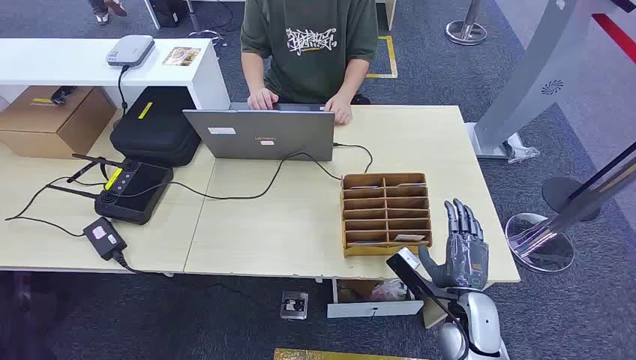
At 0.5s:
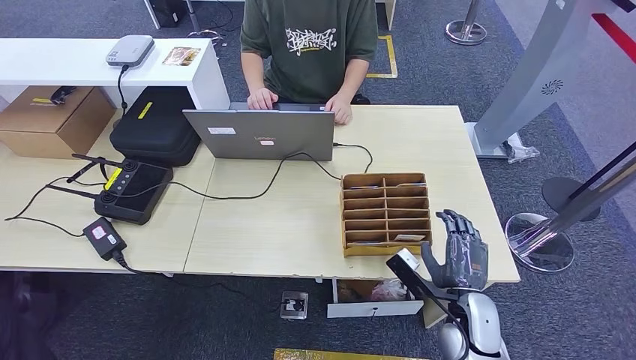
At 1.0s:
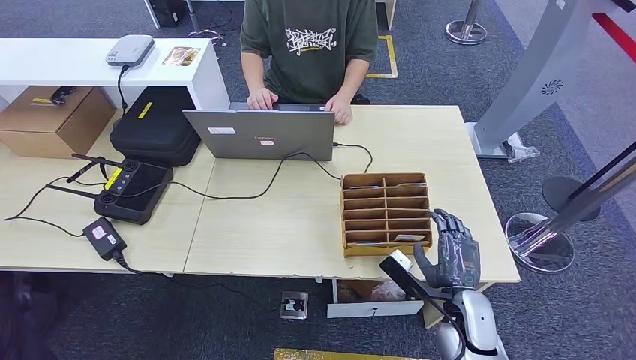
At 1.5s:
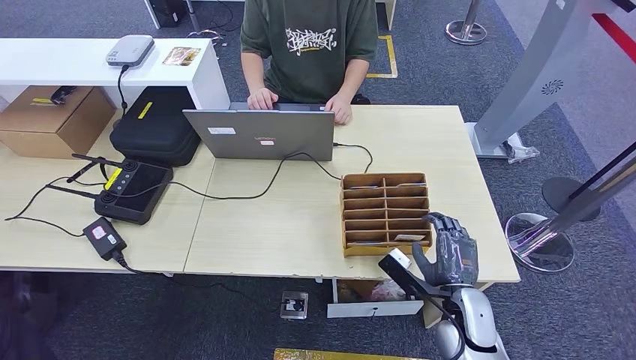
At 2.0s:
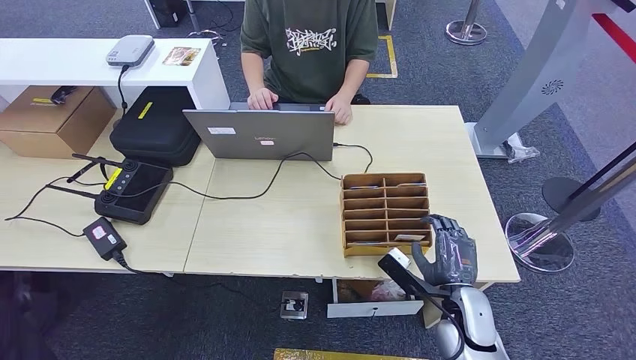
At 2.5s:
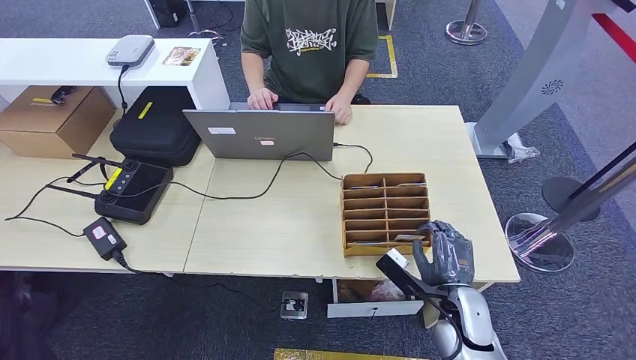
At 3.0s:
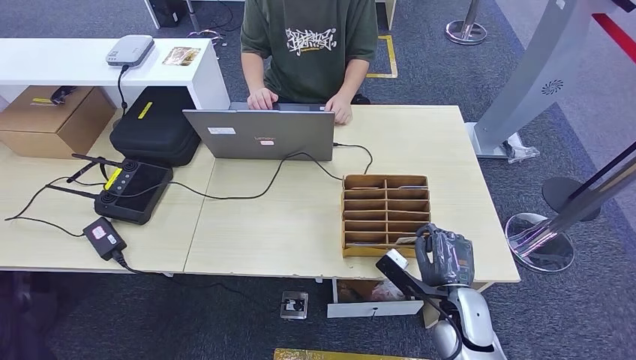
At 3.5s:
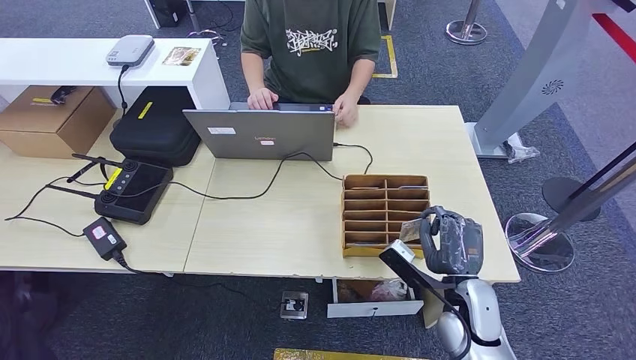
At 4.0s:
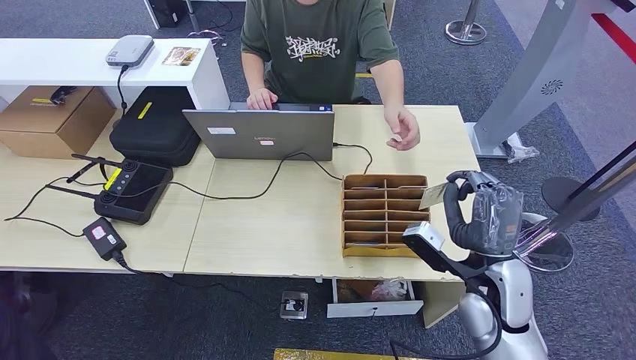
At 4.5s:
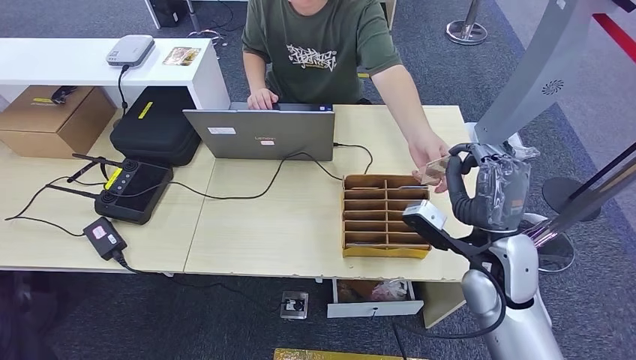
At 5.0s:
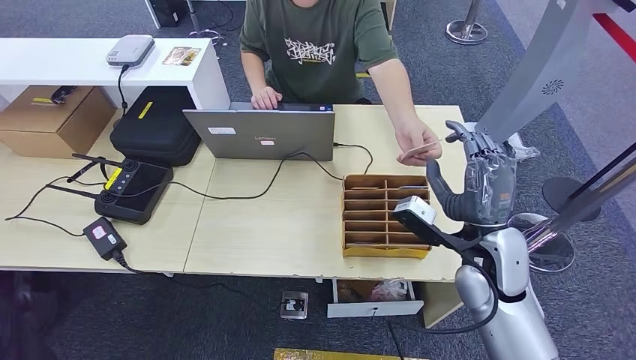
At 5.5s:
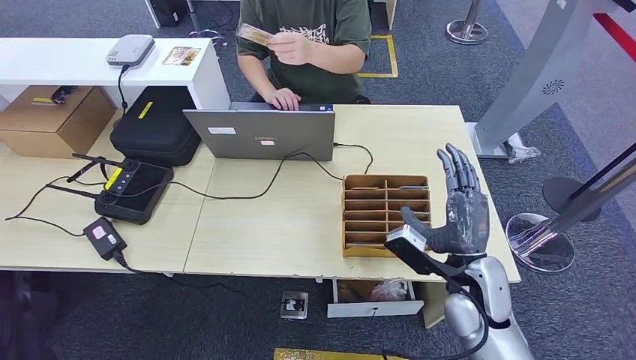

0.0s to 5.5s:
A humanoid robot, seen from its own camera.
Step, 0.0s to 3.5s: Pick up the key card from the card box.
Step, 4.0s to 5.5s: Hand the key card to the target.
2.0s to 3.5s: There are only small adjustments of the hands.
3.5s to 5.5s: The right hand moves upward, about 5 cm.
